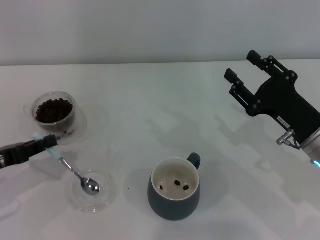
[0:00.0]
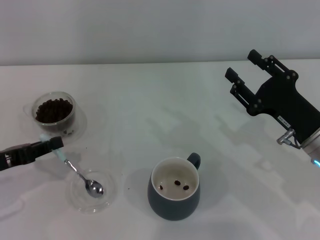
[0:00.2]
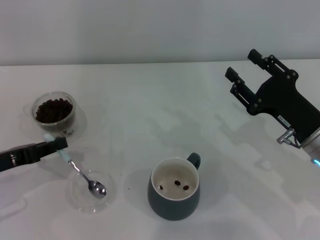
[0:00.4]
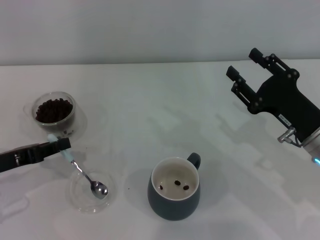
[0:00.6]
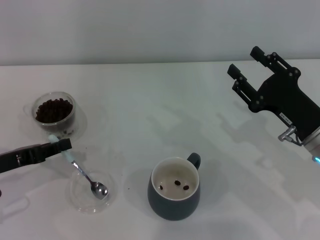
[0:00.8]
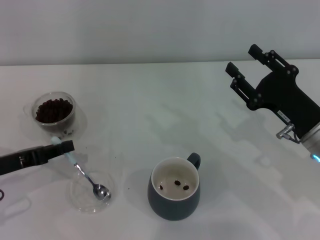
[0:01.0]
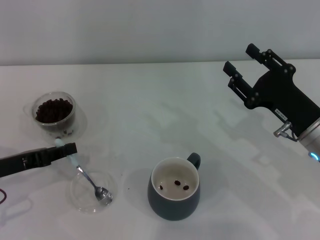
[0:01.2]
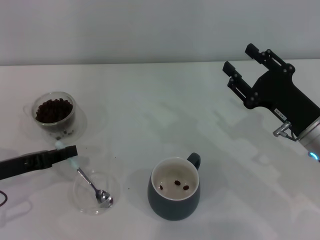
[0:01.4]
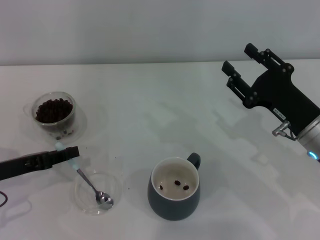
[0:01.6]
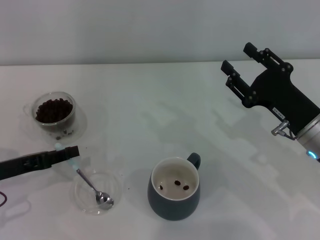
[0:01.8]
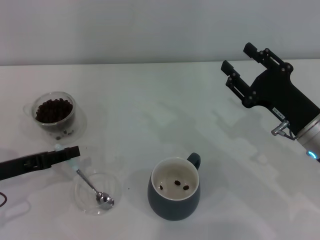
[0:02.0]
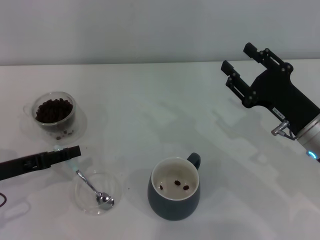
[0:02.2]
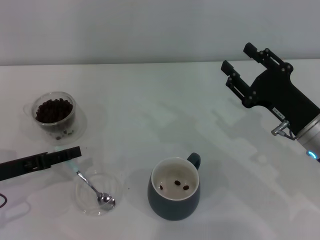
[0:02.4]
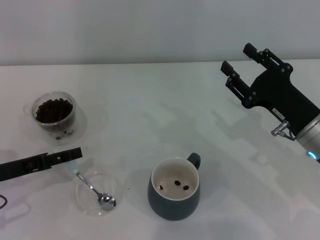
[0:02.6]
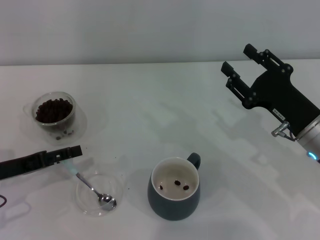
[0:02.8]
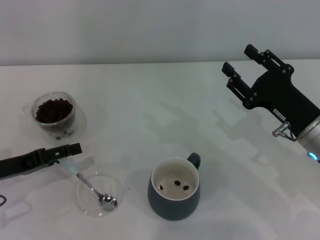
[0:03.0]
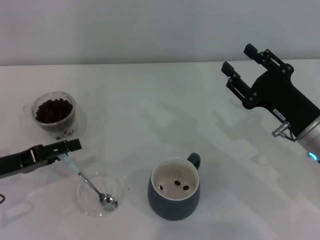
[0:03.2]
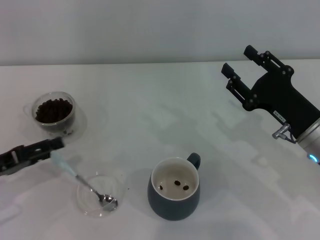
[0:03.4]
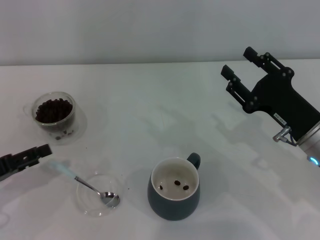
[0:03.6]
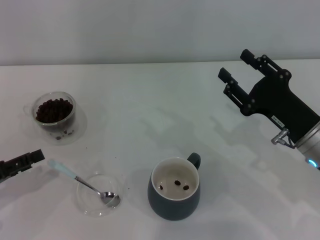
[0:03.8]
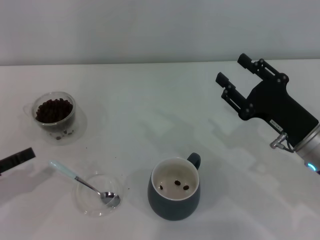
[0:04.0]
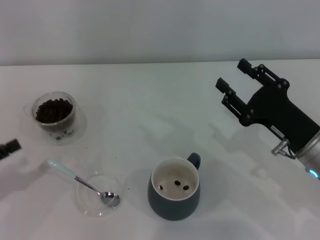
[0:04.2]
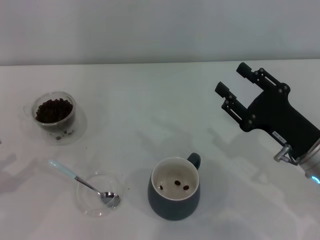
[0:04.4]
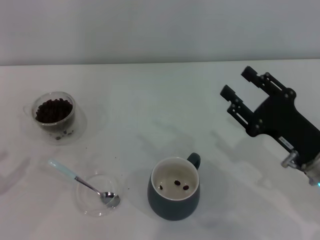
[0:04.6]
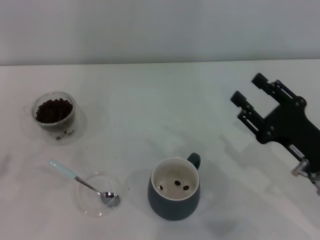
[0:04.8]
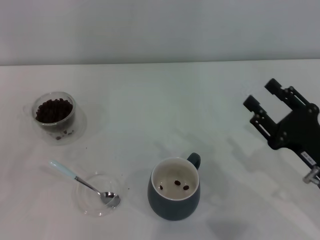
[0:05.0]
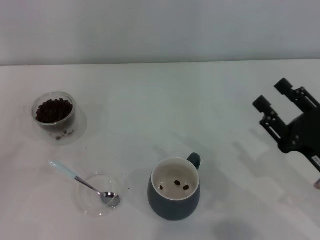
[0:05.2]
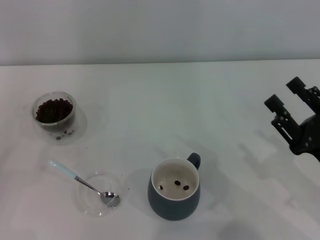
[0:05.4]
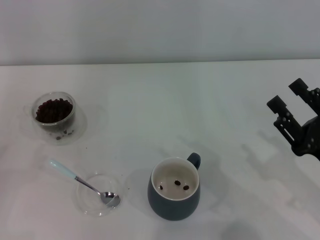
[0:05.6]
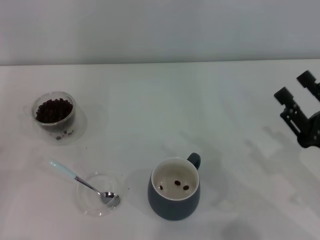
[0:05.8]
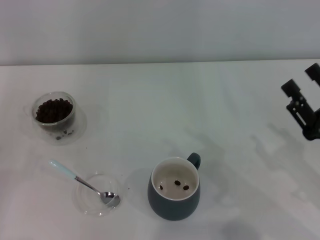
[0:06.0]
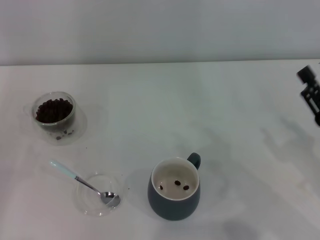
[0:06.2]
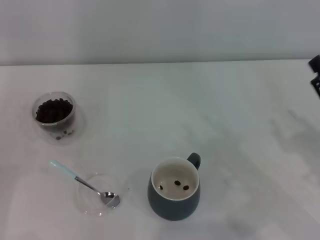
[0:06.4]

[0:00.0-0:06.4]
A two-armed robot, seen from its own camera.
Task of the whole recording: Use a blue spoon to take out the coffee beans from the glass and pour them into the gray cup.
Step, 0:00.0 to 0:03.8: Place the spoon back in its original place with the right gripper.
0:00.0 to 0:01.6: The grippers stay close to where they were, moving slightly.
0:01.6 to 0:03.2: The left gripper opens up.
0:03.2 to 0:04.8: The left gripper shifts roughly 15 cm to the left and backward, while the right gripper goes approximately 5 cm backward.
0:04.8 to 0:06.4: The right gripper moves to the right, about 5 cm.
